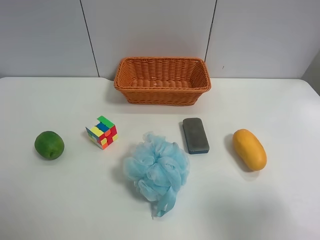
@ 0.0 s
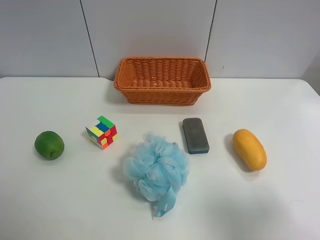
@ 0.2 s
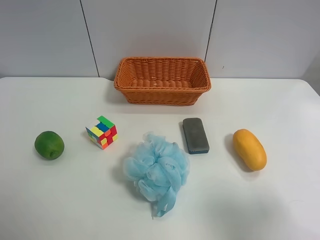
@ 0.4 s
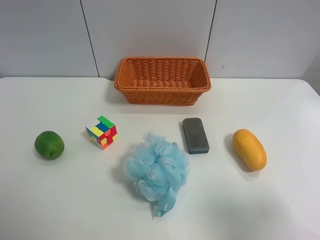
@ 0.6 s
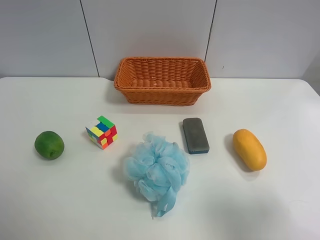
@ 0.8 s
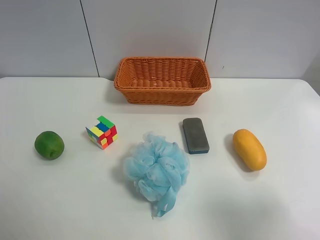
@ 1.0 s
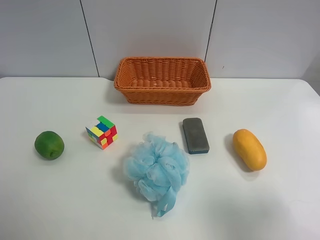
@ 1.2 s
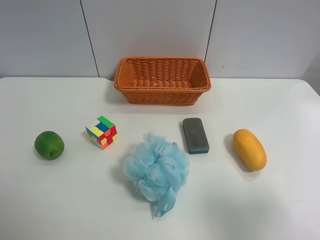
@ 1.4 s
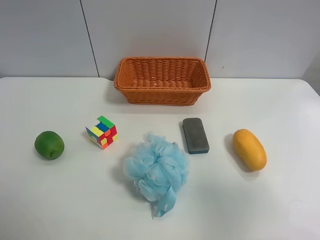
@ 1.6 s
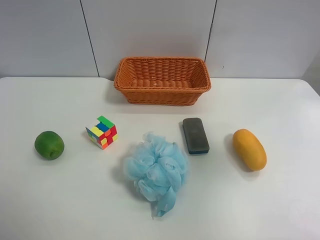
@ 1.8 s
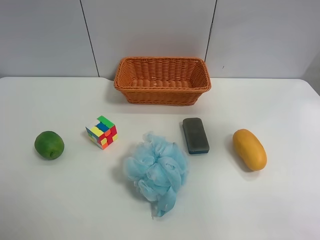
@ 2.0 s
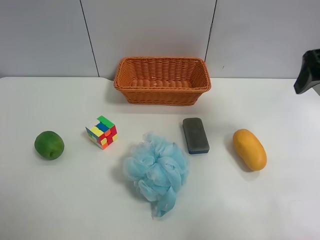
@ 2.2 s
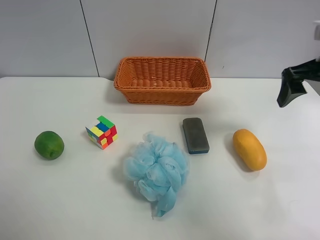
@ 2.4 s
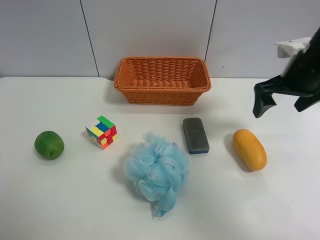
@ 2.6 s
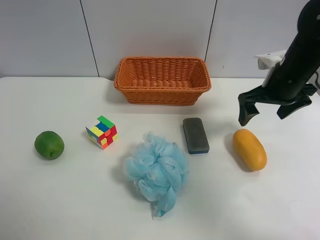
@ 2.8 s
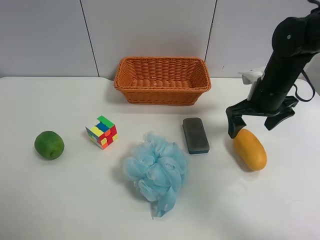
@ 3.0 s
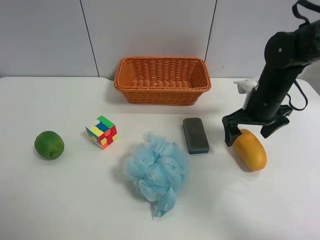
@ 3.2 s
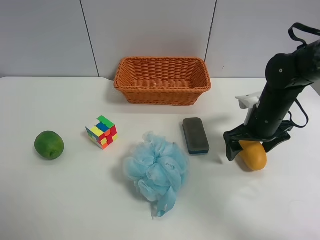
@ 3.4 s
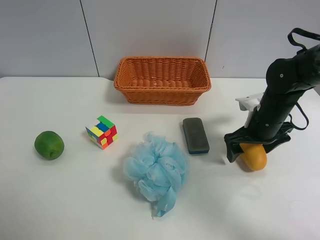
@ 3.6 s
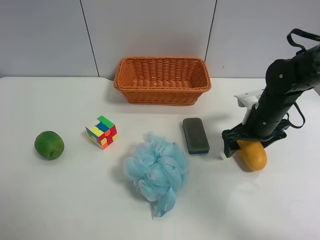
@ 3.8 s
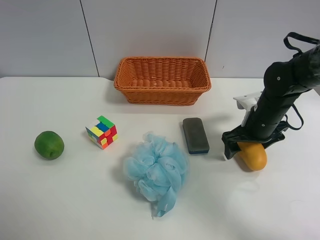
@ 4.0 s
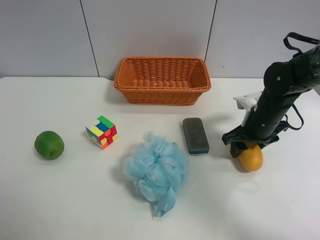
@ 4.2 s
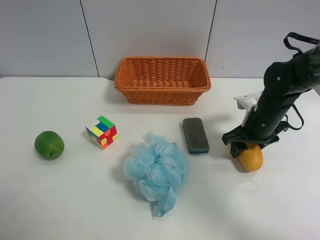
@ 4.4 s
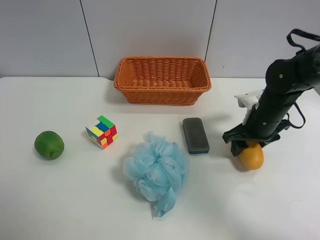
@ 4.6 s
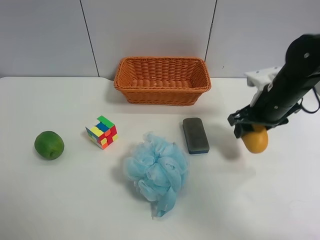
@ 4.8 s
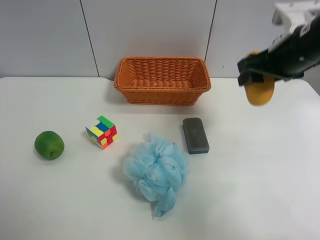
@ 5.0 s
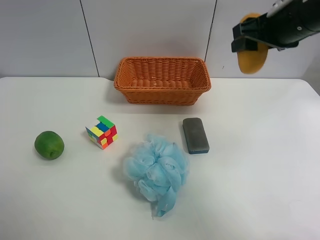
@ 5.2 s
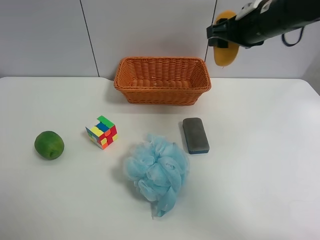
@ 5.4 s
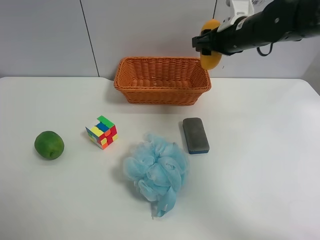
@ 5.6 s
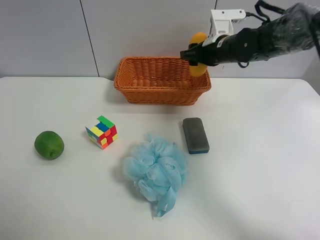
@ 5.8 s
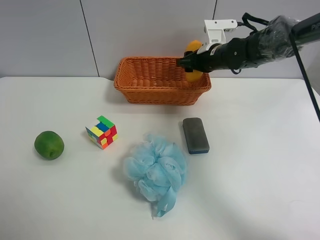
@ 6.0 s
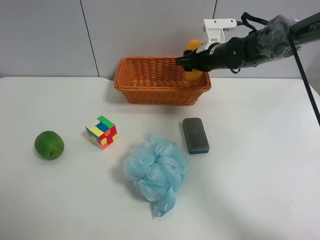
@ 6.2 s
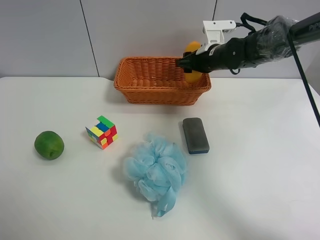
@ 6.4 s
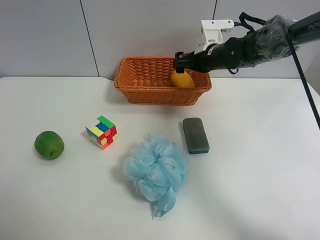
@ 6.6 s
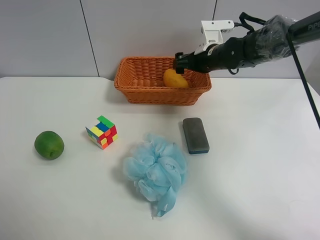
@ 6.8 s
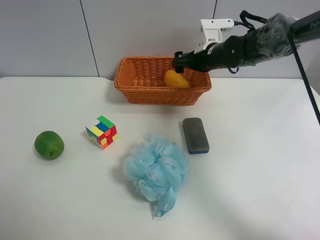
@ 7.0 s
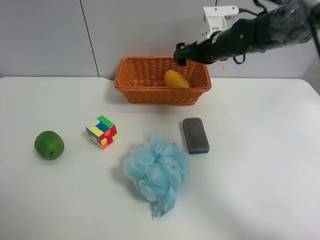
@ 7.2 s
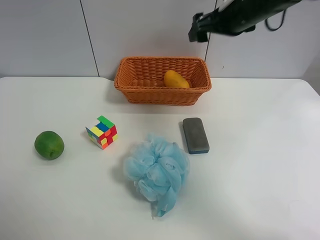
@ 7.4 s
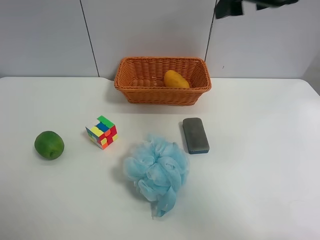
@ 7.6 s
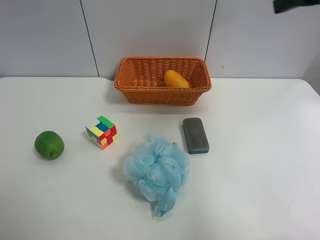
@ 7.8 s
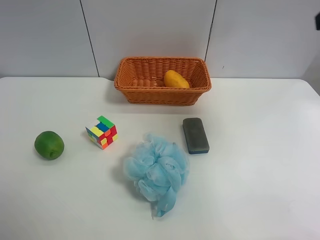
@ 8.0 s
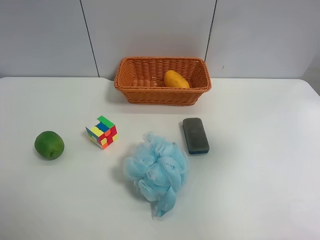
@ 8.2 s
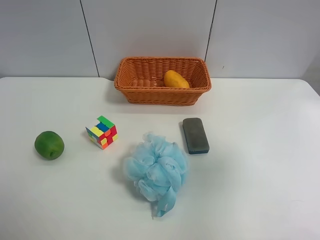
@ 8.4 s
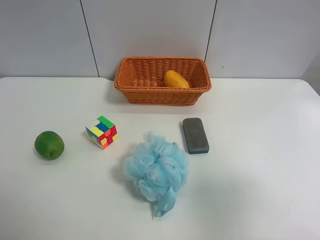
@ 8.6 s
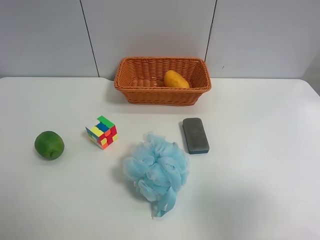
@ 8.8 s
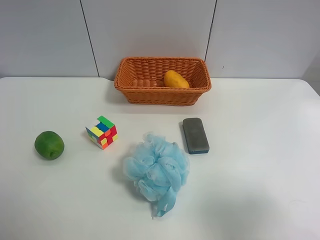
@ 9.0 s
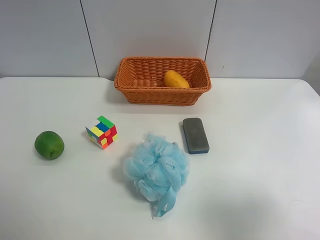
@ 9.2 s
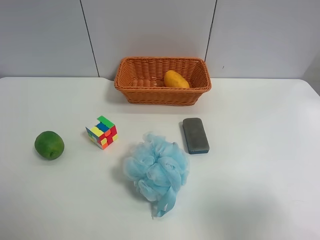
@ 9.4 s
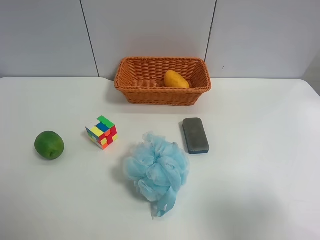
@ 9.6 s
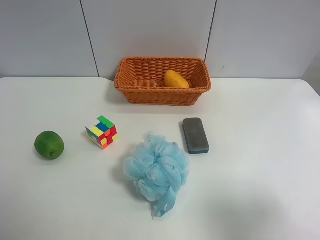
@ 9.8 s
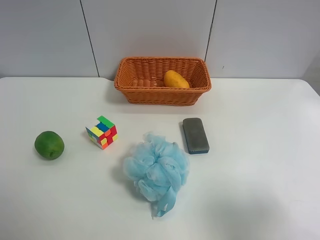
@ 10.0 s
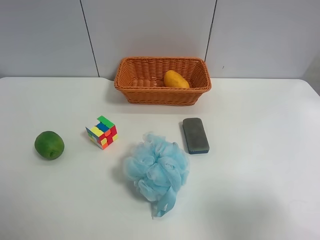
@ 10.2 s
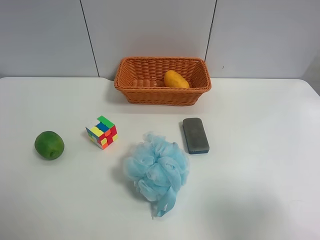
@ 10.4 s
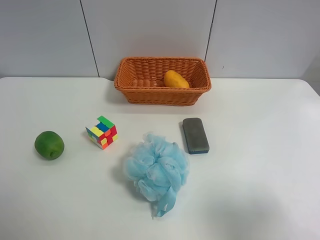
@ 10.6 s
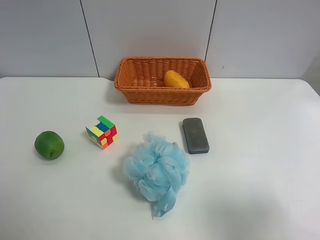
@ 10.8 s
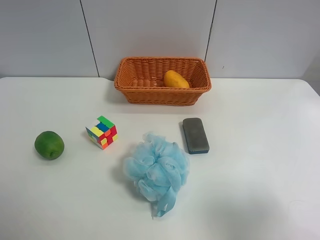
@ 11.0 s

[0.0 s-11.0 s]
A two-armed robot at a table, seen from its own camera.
Task of the whole recording: Randomly grab green lemon or mangoes from the table and put them in a basket.
Step, 0.0 to 4.4 s: Grasp the mango with the right gripper.
Step, 4.6 to 7.2 s: Place the mango into the basket with the right gripper.
0.0 to 1.6 s: The right gripper moves upward, some 5 cm.
1.6 to 3.2 s: The right gripper goes approximately 30 cm forward and downward.
3.2 to 4.8 s: The right gripper closes up.
4.8 to 6.2 s: The right gripper shifts roughly 15 cm forward and to the left.
6.2 to 7.8 s: The right gripper is displaced upward, backward and to the right by roughly 35 cm, and opens its fingers.
7.8 to 9.4 s: The right gripper shifts about 25 cm backward and downward.
9.4 to 11.0 s: Neither gripper changes place.
